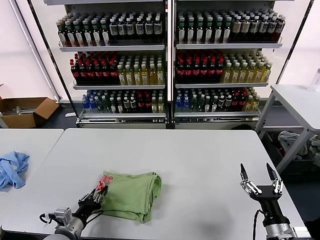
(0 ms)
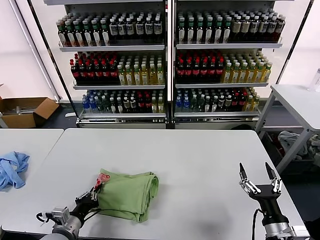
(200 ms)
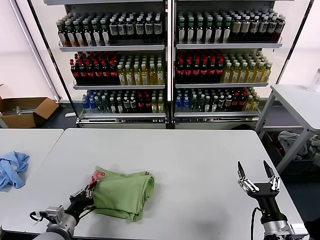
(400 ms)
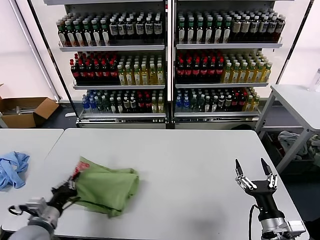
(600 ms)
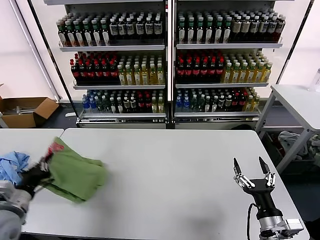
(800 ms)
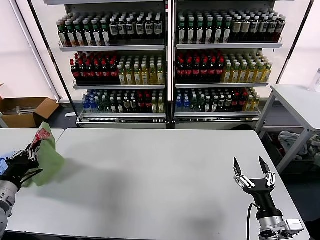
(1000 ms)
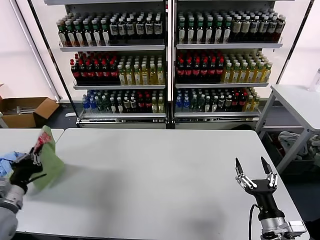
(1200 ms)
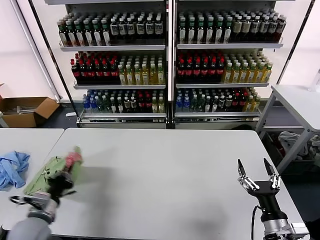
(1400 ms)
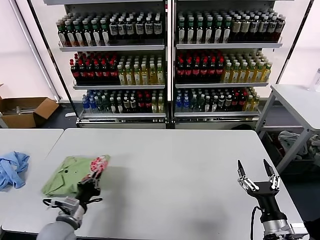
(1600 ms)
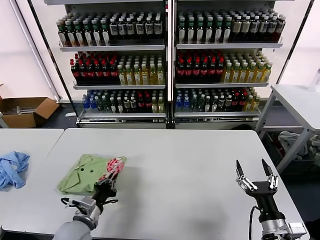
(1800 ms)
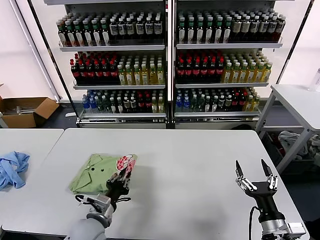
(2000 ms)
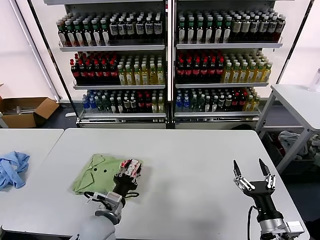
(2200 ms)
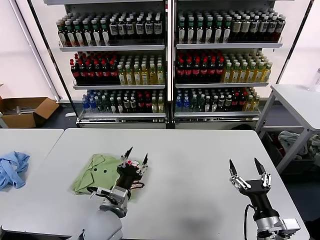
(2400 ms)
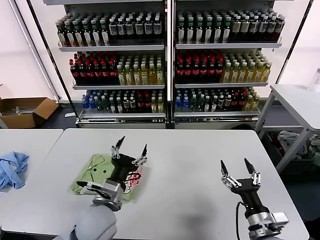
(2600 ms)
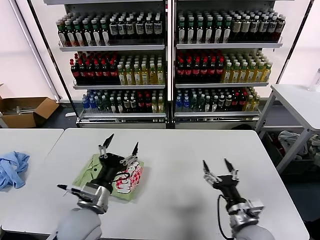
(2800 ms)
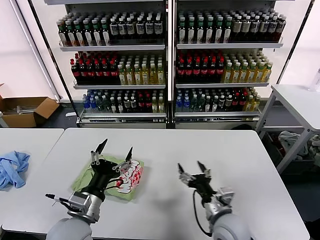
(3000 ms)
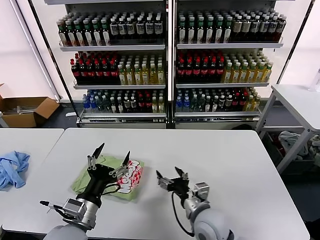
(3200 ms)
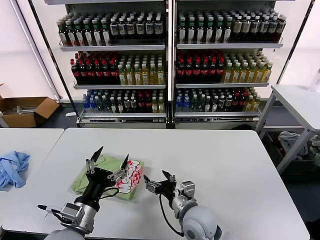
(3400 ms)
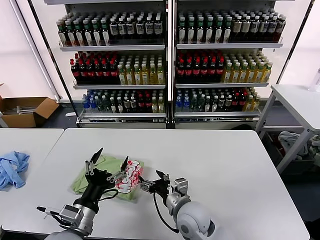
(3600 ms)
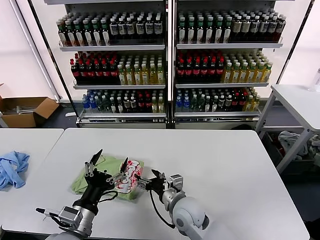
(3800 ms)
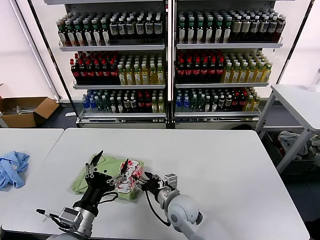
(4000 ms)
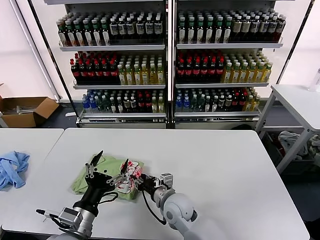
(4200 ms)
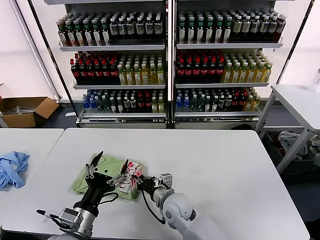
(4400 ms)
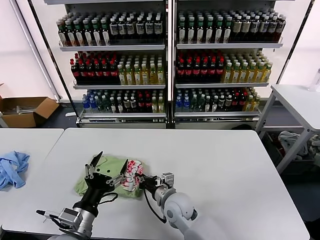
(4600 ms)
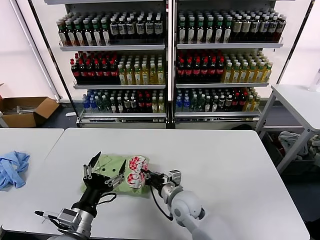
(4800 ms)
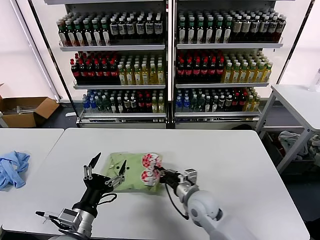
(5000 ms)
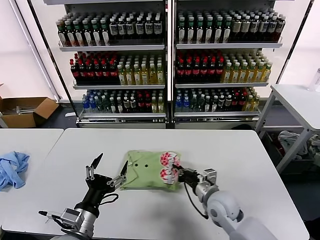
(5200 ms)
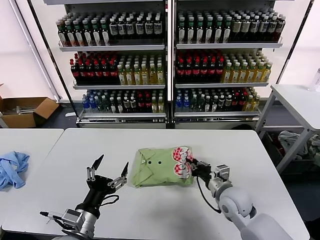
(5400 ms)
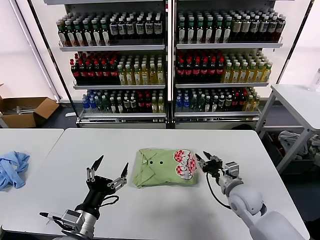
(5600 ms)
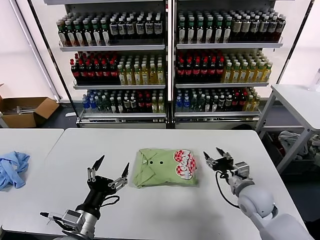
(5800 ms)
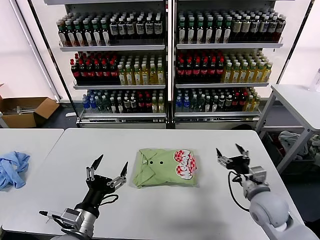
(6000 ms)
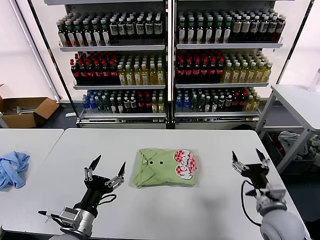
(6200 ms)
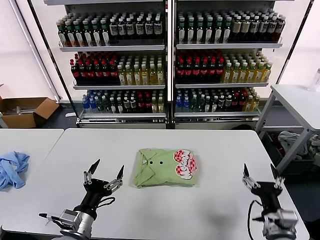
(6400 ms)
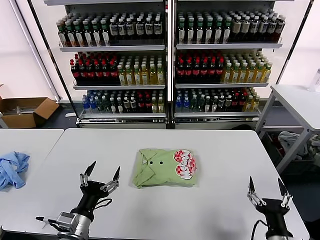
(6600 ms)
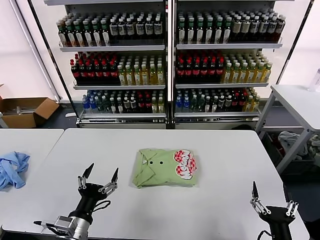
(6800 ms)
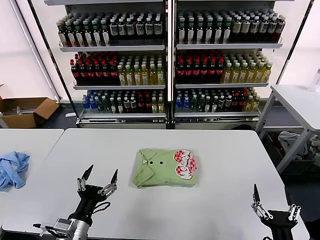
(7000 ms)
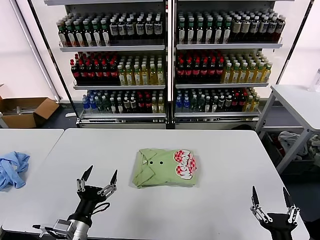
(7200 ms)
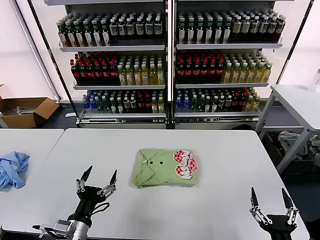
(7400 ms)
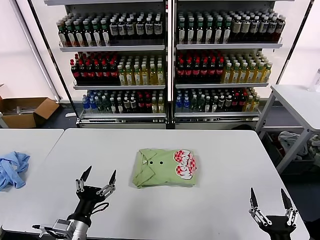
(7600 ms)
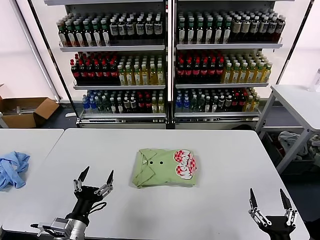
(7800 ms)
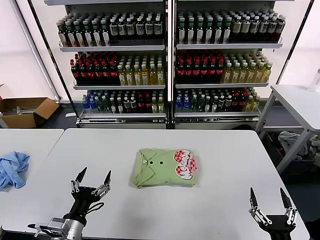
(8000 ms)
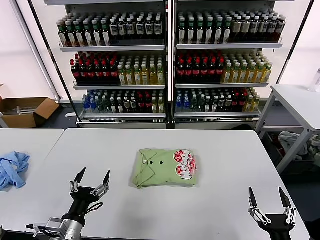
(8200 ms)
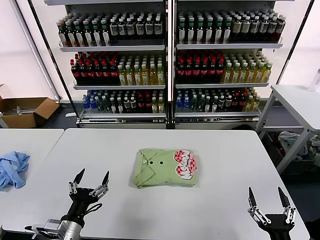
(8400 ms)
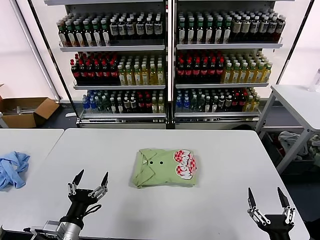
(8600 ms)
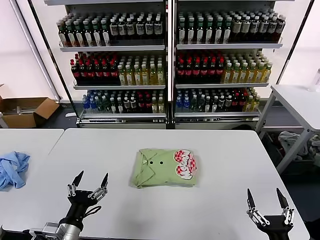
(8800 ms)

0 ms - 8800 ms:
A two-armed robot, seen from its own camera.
Task of the whole recording: fold and organize the clothes.
Step, 0 ms - 2200 ms: Flip the folded clothes over with left gripper.
Step, 2400 ms - 5400 ms: Drag the clothes to the center of the table.
0 ms - 1400 ms: The left gripper shifts some 10 cm to the left and upward, and closes up.
1400 ms - 3000 ms: The left gripper moves to the right, about 20 cm, and opens its fingers. Meanwhile the right gripper travels to the left and forward by roughly 15 cm.
3000 ms - 4400 ms: The right gripper heads to the left and forward, covering approximately 15 cm, and closes its fingers.
4400 ms - 5800 ms: The right gripper travels to the right by roughly 25 cm.
5800 ms - 7400 ms: The right gripper heads backward, covering about 25 cm, and opens its fingers.
7400 ms - 8800 ms: The grippers make only small movements.

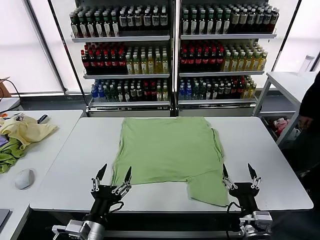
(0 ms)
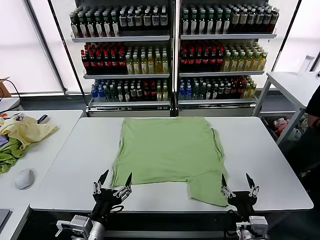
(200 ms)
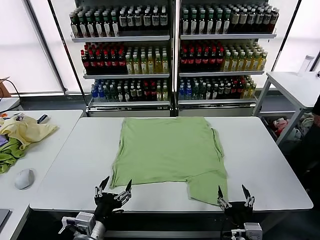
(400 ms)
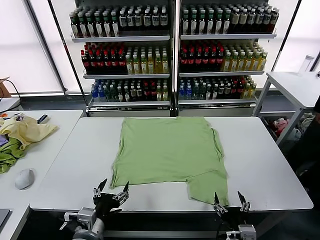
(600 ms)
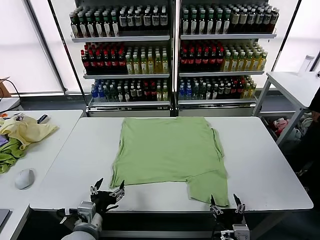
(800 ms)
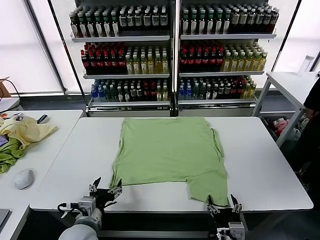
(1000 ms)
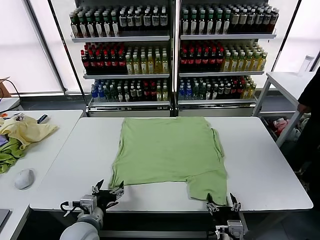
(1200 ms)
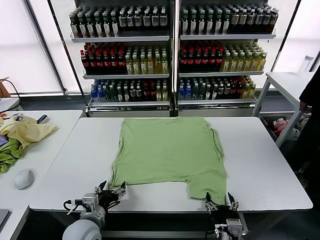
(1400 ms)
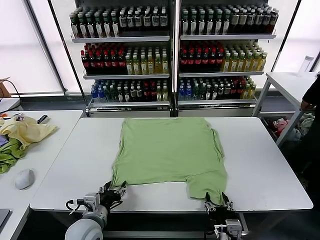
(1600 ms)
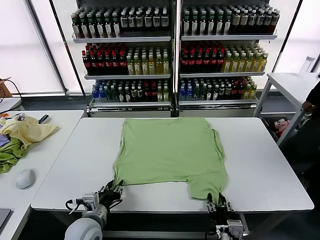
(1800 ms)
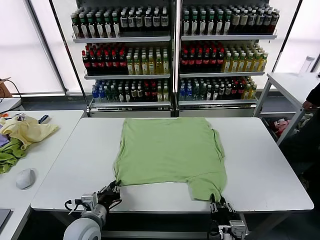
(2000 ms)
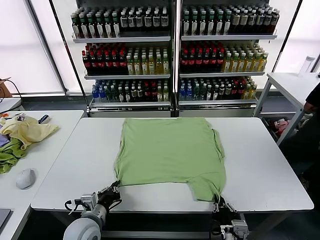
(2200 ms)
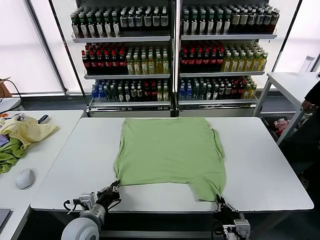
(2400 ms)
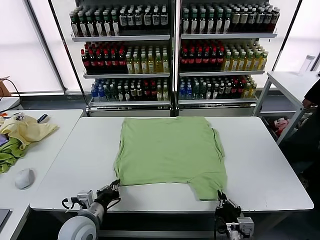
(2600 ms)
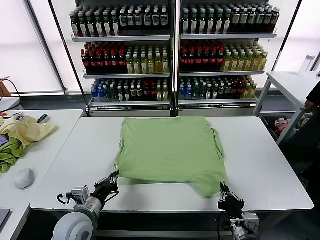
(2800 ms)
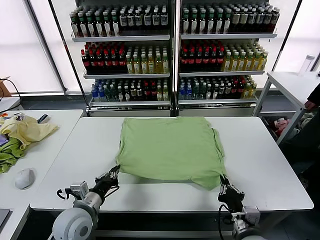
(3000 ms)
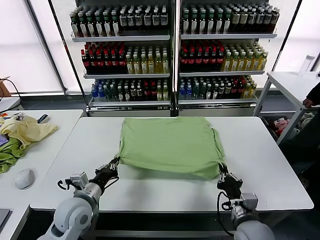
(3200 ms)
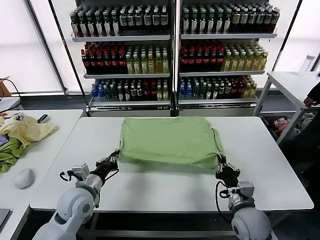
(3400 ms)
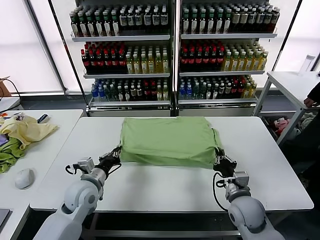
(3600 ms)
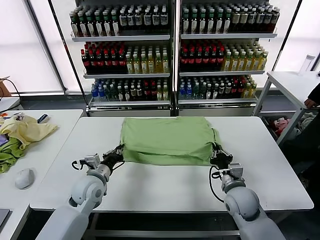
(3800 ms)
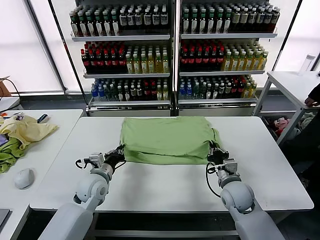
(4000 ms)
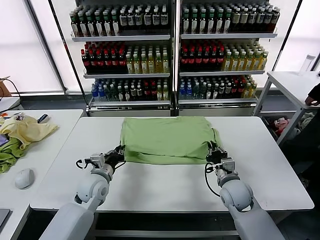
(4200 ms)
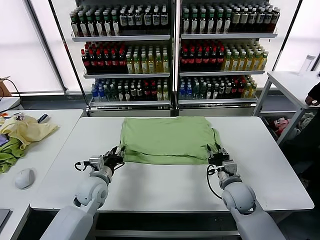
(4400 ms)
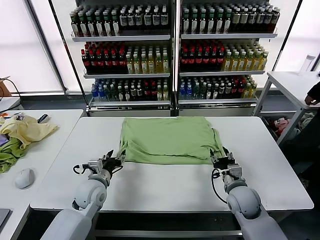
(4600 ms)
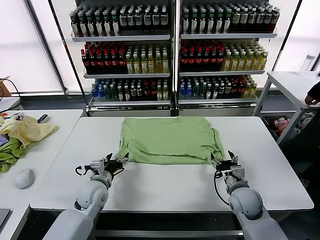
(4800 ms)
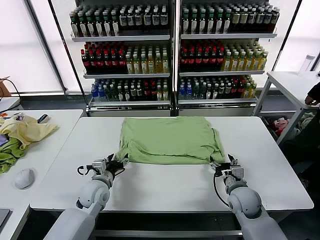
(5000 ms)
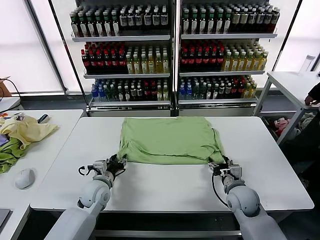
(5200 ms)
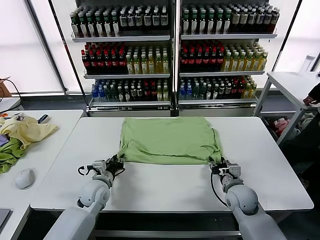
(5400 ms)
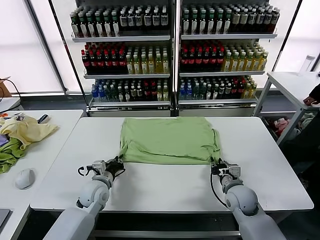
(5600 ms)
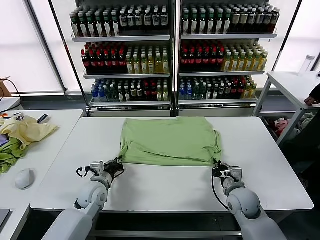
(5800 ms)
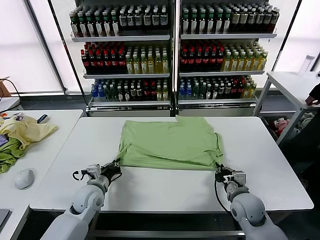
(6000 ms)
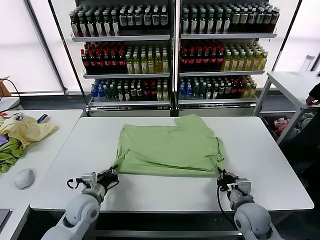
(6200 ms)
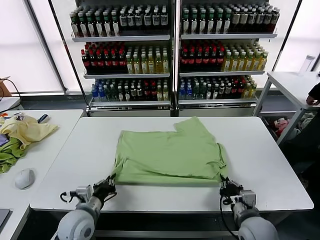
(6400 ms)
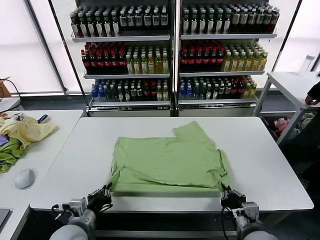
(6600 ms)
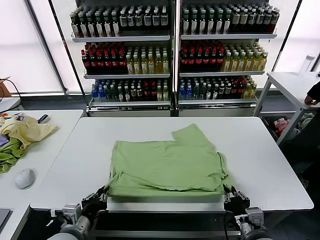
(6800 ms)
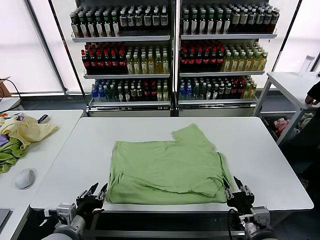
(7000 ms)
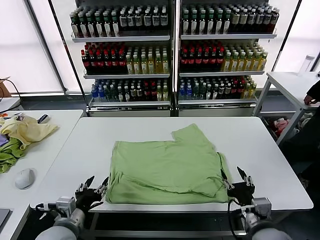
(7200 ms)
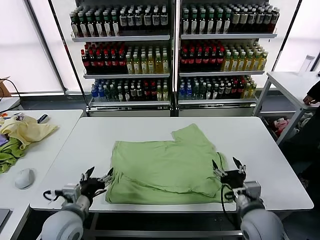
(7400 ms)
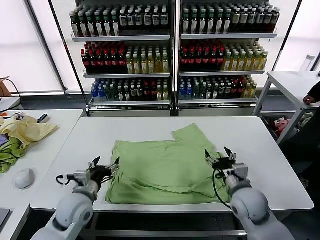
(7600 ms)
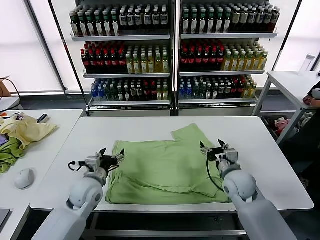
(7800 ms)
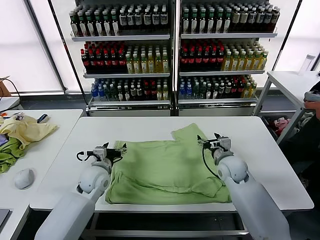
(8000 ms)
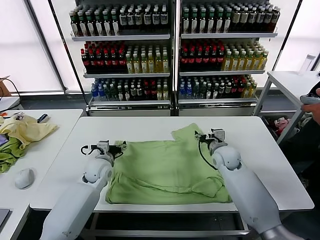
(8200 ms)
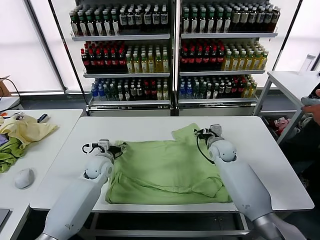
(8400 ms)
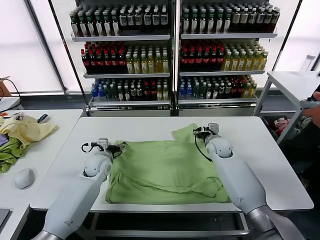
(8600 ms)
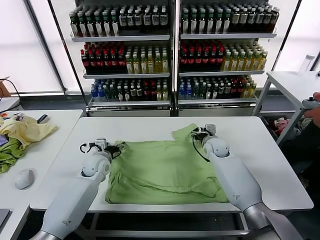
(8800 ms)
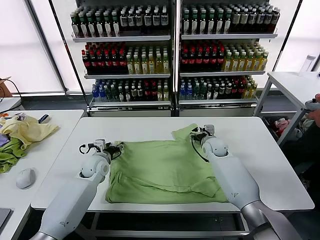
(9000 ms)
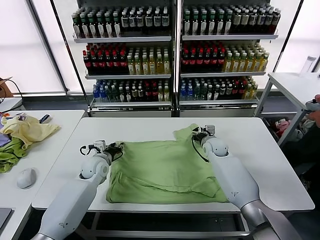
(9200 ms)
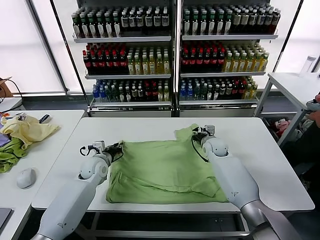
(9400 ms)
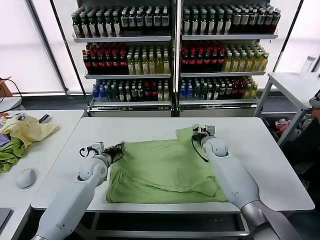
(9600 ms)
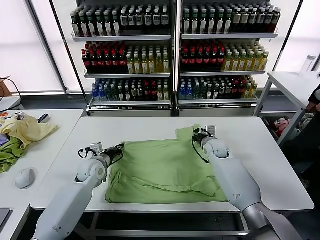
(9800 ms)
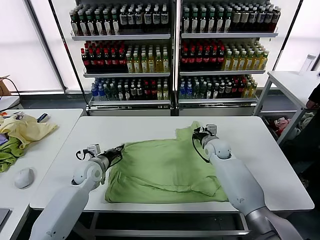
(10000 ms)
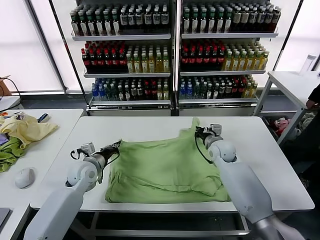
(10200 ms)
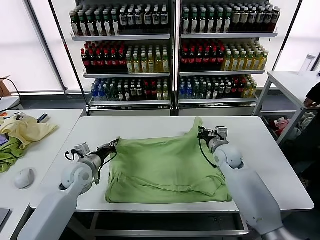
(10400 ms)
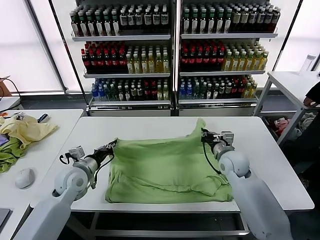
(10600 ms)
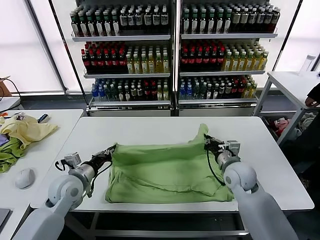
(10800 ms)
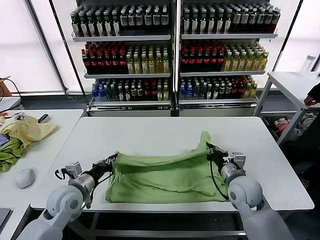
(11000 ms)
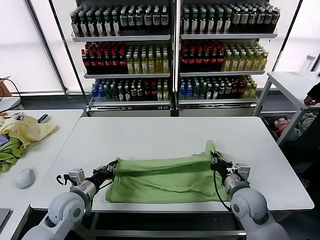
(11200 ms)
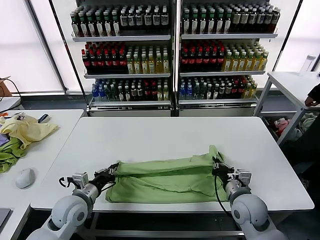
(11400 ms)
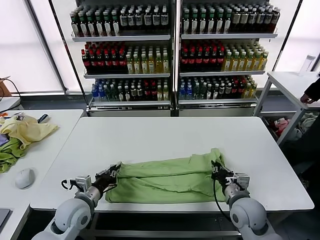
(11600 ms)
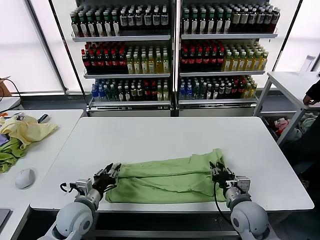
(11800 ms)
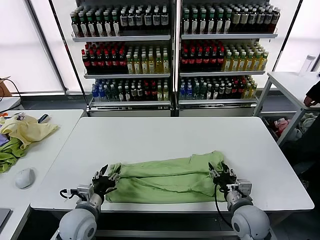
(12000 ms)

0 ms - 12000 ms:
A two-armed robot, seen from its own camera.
Task of the whole recording: fold and organize the clothes.
Step, 0 ms - 2400 ms: use both grippers simultaneously to clamp the lower edge of the clothing fabric.
Step, 2600 ms - 4400 ms: use both grippers to drag the lower edge of the fabric forward and fold it over the upper edge.
Step, 4600 ms - 7000 ms: Drag the clothes downward with both gripper.
Step, 7200 ms - 9600 ms: use both grippers simultaneously to clamp the upper edge of the clothing fabric.
1600 ms - 3000 ms: The left gripper changes place by some 5 cm, and closes up. The right gripper moves about 10 cm, and closes up.
3000 ms - 4400 ms: Both grippers move forward, some 10 cm. The right gripper opens, while the left gripper opens its fingers.
4400 ms - 6000 ms: The right gripper closes up. Meanwhile the left gripper closes.
6000 ms - 7600 ms: Both grippers travel together upward, approximately 5 cm. The right gripper reaches about 15 cm backward, then returns, and opens its fingers, while the left gripper goes backward and returns, some 15 cm each way, and opens up.
7600 ms - 9000 ms: The grippers both shift forward by some 20 cm.
9000 ms - 10400 ms: The grippers both shift backward by some 5 cm. The right gripper closes, while the left gripper closes.
10400 ms - 12000 ms: Both grippers travel together backward, some 20 cm. The left gripper opens. The right gripper opens its fingers.

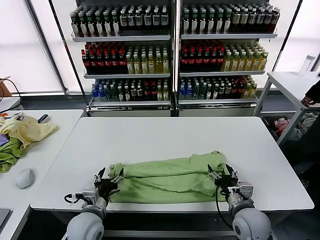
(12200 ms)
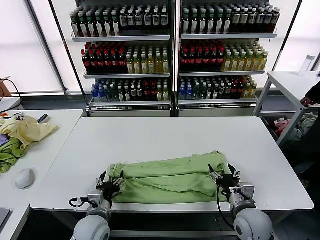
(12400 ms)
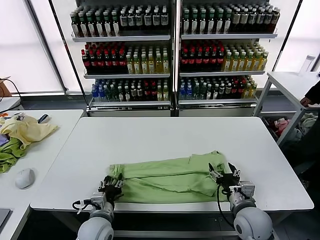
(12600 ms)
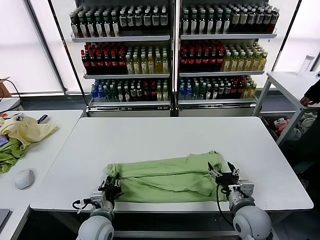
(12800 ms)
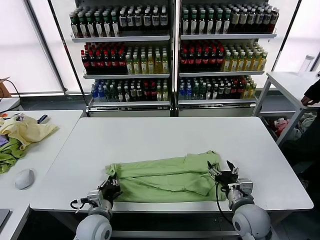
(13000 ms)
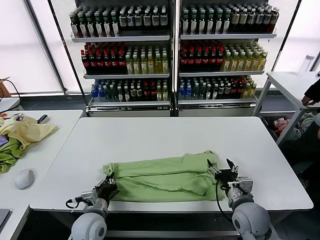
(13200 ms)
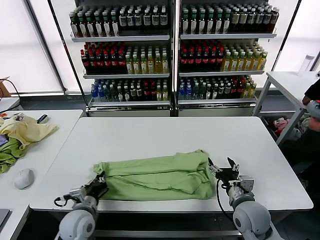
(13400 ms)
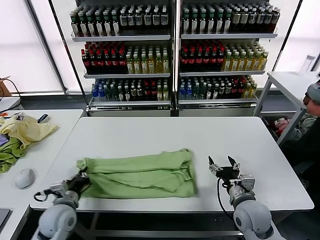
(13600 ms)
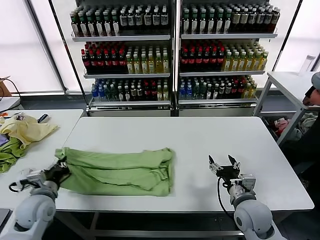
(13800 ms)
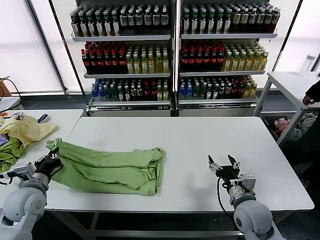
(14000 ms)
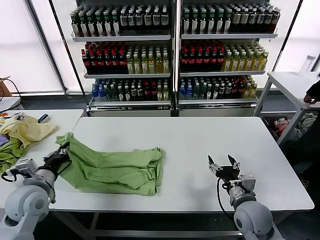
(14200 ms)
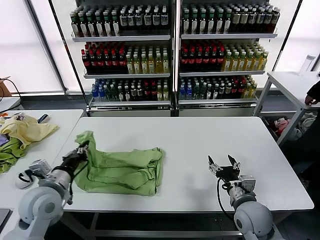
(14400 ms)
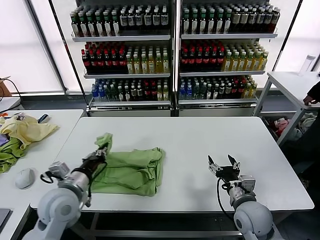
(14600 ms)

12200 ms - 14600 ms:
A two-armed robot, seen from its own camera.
Task of the whole recording: fold and organize the clothes.
Step, 12200 ms - 13000 ms: use the left gripper to clamp the left edge of the fabric.
12200 ms - 13400 ms: The left gripper closes up.
13400 ms - 14600 ms: The left gripper is displaced upward by about 10 cm, and goes to the left and returns, some 15 cm each way.
